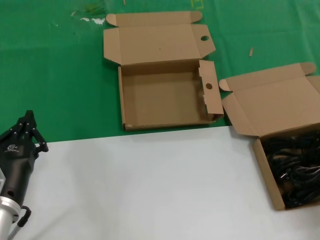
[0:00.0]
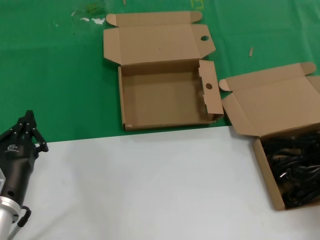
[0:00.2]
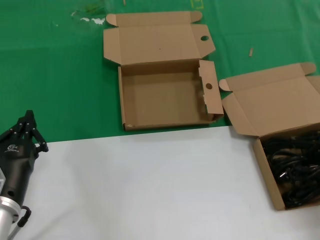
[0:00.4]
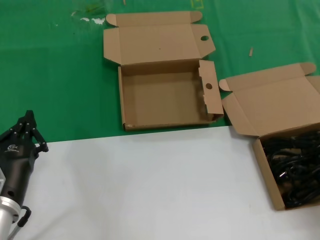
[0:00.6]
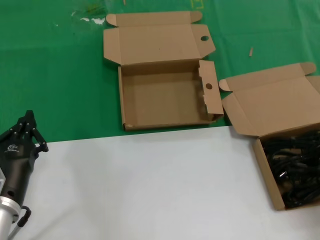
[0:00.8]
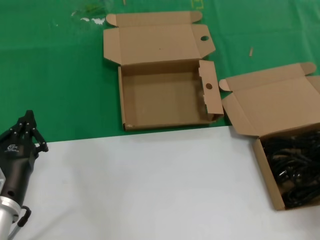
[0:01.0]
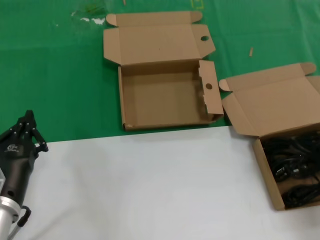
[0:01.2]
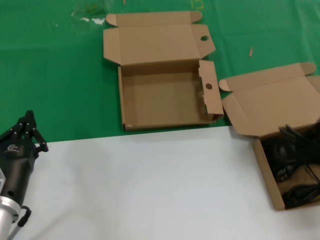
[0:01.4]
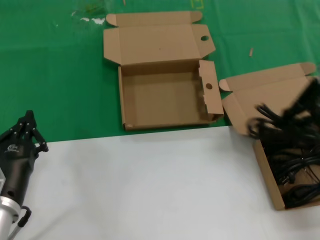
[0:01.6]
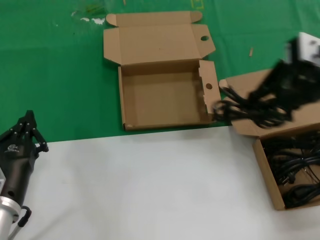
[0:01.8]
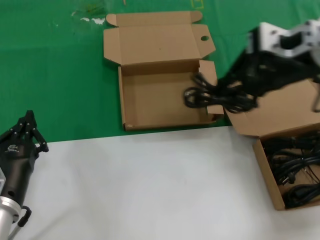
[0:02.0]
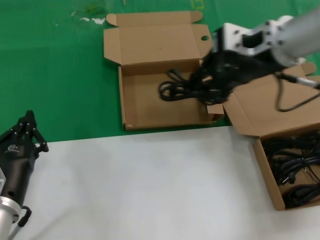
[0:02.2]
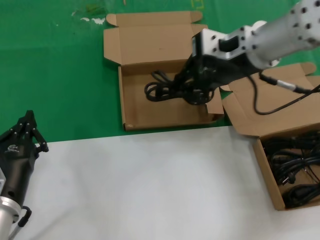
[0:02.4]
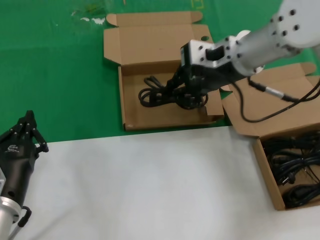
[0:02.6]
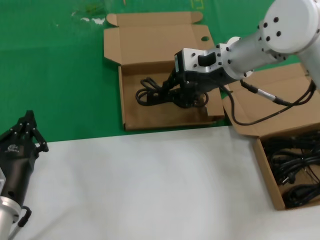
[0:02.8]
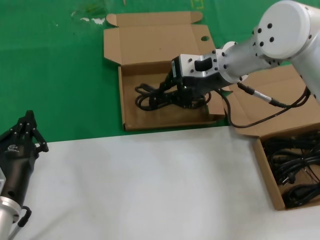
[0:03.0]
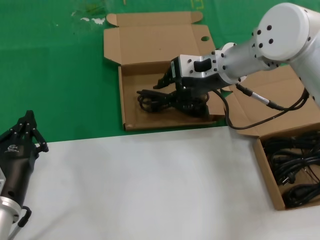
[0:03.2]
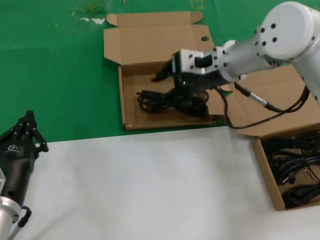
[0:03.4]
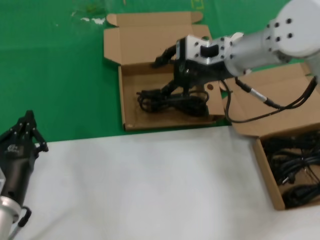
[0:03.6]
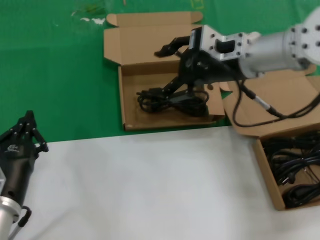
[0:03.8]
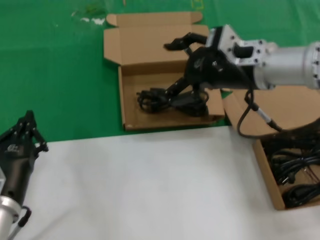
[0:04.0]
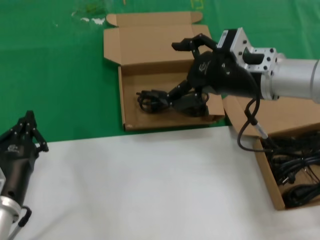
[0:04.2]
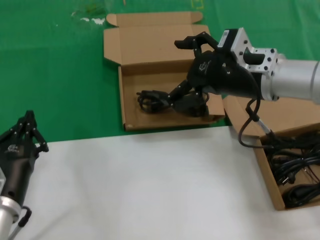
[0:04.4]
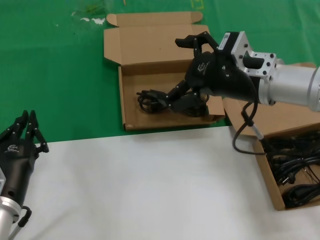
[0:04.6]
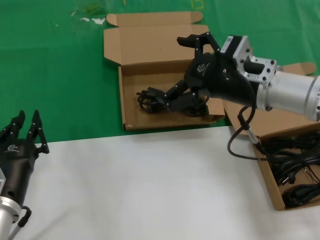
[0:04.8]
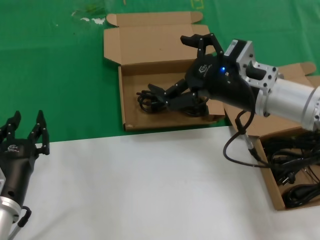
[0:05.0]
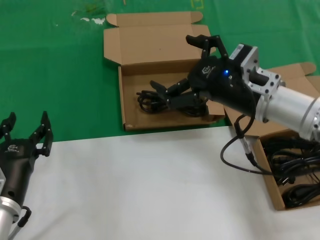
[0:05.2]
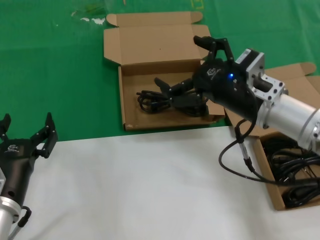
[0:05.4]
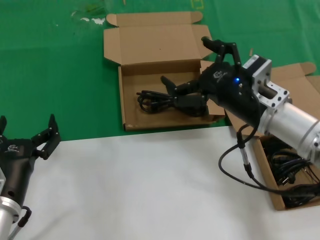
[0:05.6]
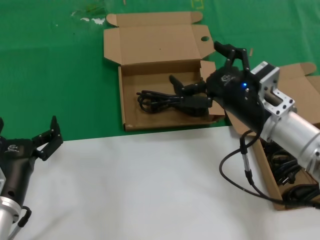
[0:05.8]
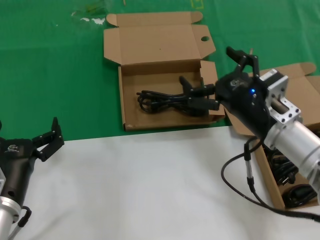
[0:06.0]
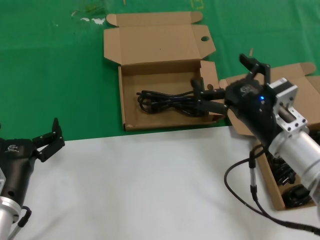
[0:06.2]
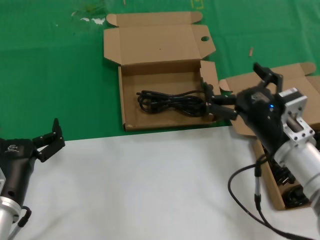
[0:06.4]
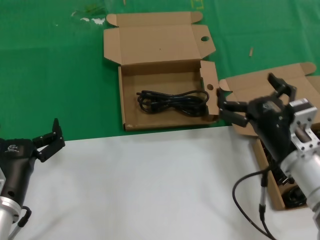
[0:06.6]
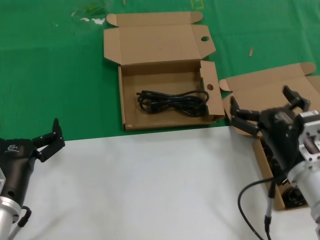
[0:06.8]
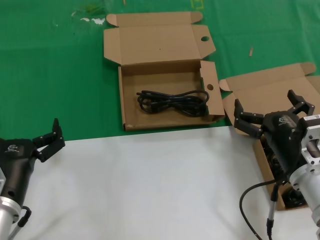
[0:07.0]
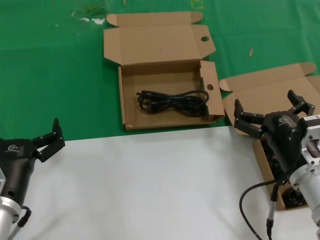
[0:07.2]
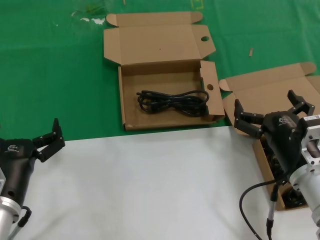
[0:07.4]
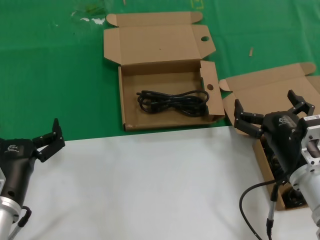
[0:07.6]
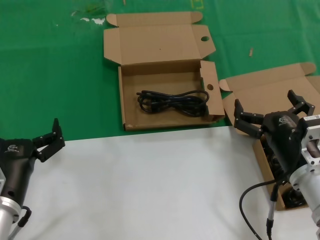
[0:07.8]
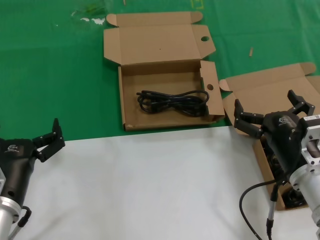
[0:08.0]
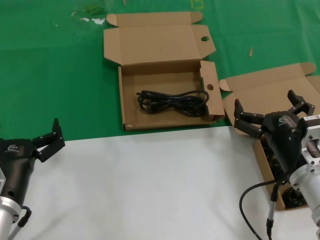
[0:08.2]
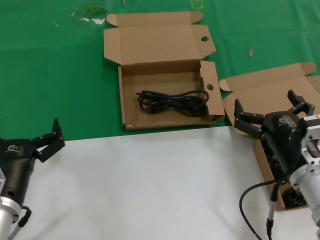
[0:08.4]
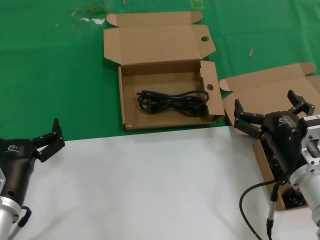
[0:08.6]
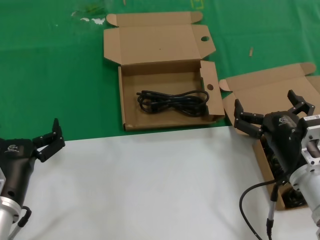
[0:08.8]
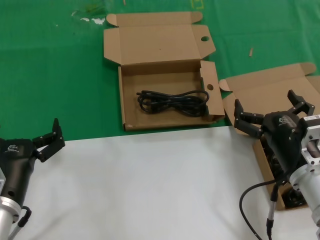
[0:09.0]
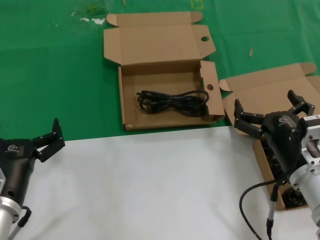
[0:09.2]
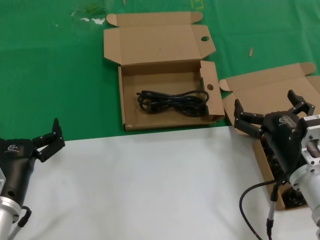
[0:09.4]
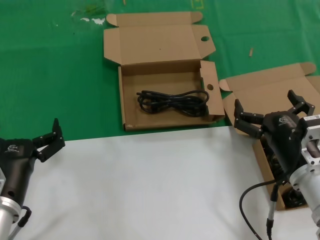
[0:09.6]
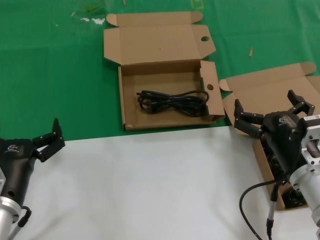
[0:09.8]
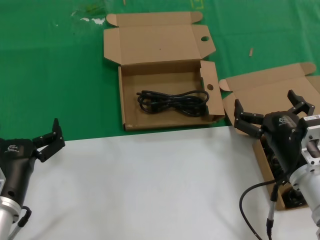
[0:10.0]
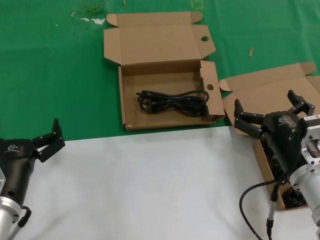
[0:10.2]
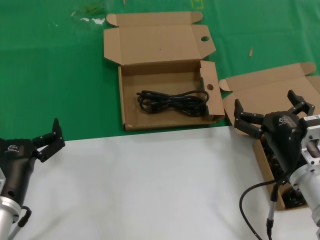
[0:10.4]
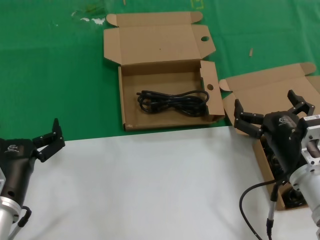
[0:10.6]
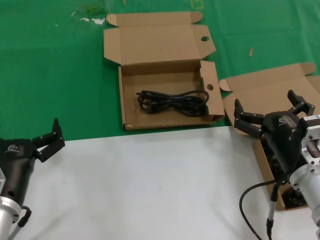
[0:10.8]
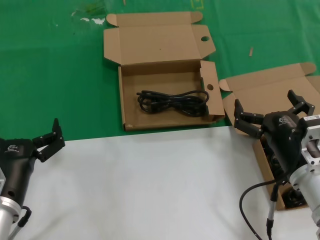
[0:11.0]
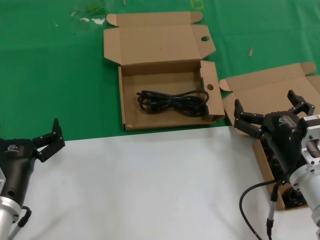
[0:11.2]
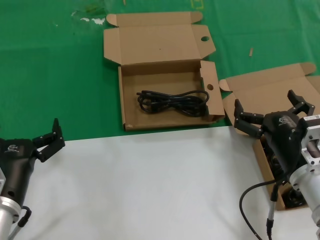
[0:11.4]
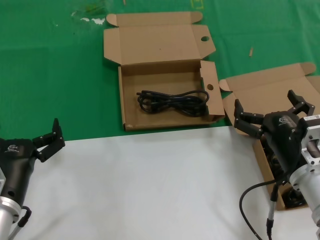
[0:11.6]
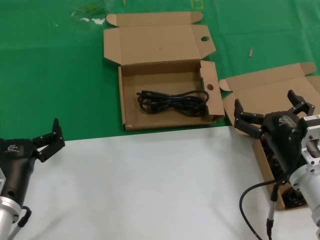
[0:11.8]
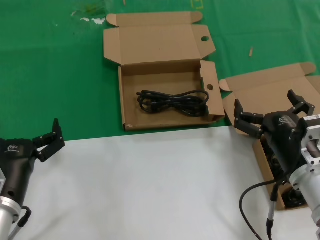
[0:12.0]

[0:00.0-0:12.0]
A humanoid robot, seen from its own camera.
Task of the whole recording: take the parts from the box containing them and put them into an empty box.
Step, 0:00.8 to 0:03.6: Place the data cable in the another box.
0:00.0 to 0:01.6: The right hand shifts some 15 cm upward and to the left.
0:01.6 to 0:03.0: The right hand goes some 25 cm to the left, forward and downward.
0:03.0 to 0:04.4: The right hand goes approximately 10 cm backward and to the right.
0:04.4 to 0:06.0: The right hand heads downward and backward, covering roughly 15 cm.
0:06.0 to 0:07.6: The right hand goes some 10 cm downward and backward.
0:07.6 to 0:12.0: Both hands stay about where they are.

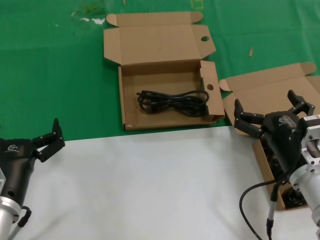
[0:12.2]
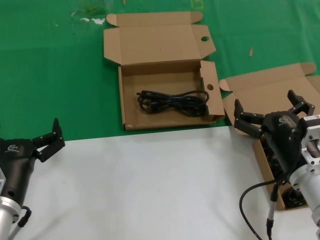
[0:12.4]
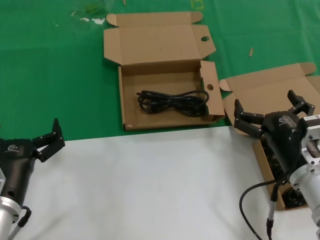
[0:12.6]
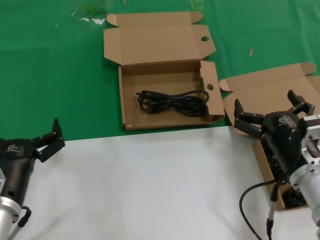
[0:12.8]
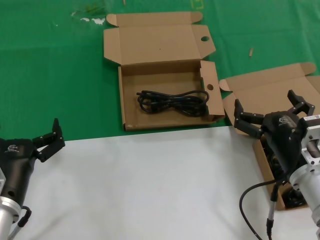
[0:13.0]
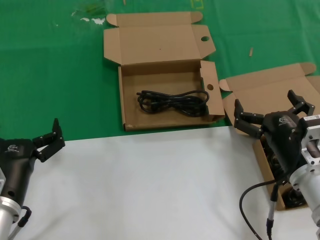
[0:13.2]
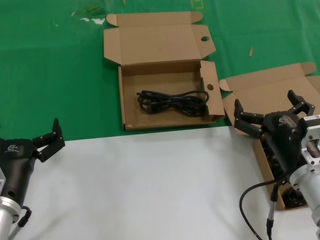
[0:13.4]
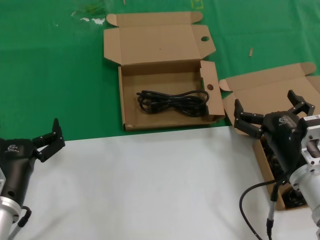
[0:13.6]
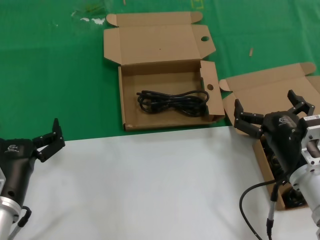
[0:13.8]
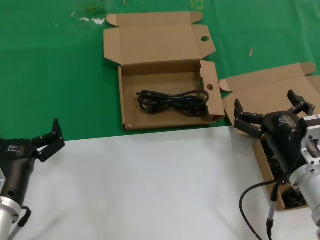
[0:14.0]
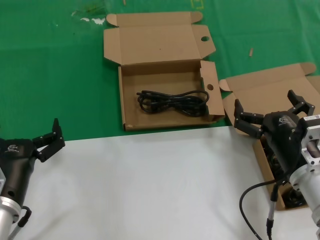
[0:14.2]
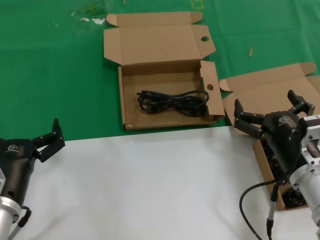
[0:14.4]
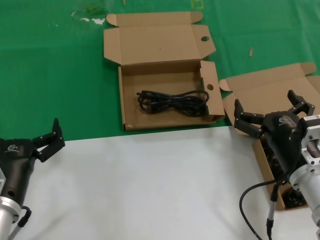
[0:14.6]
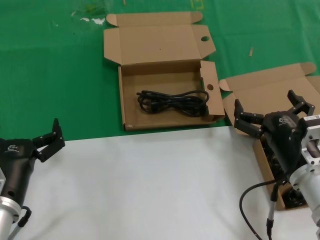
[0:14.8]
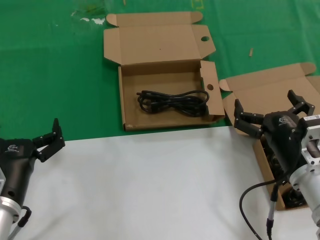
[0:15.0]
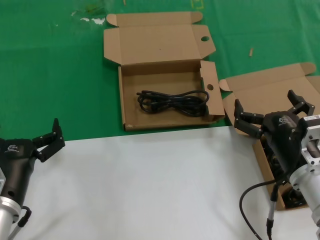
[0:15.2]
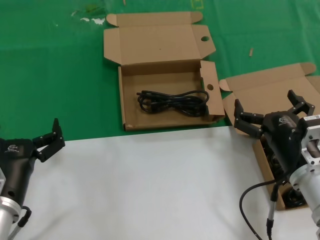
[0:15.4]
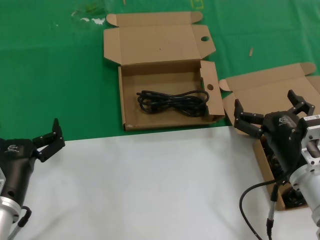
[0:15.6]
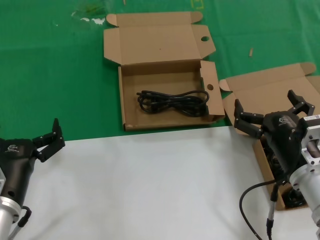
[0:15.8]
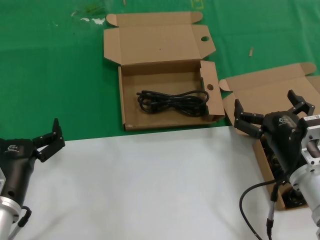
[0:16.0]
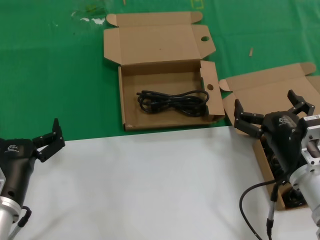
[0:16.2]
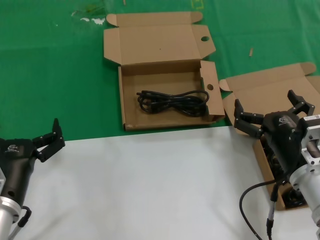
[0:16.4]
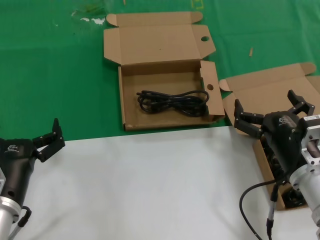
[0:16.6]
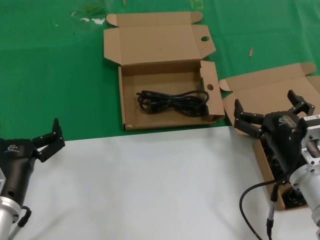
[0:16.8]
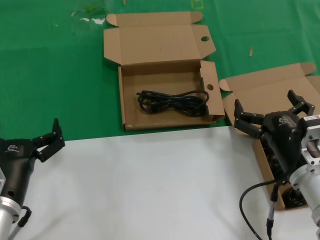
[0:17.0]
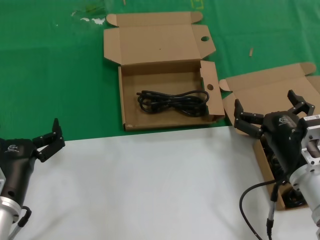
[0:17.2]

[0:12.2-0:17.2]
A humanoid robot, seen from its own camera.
Task of the whole recording: take the parts from the box containing them and put them into an empty box.
0:12.2 to 0:17.2: Both hands stay about where they are.
